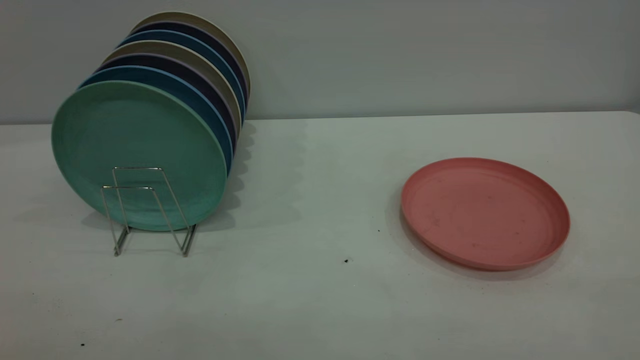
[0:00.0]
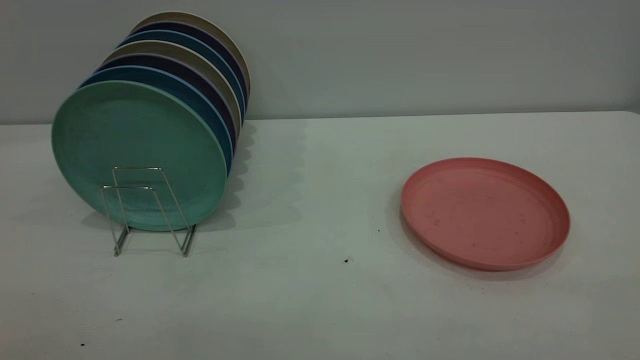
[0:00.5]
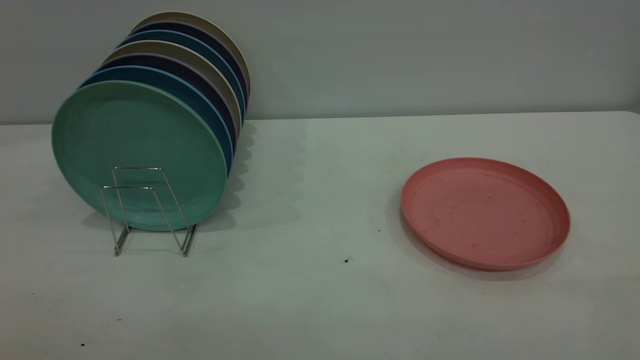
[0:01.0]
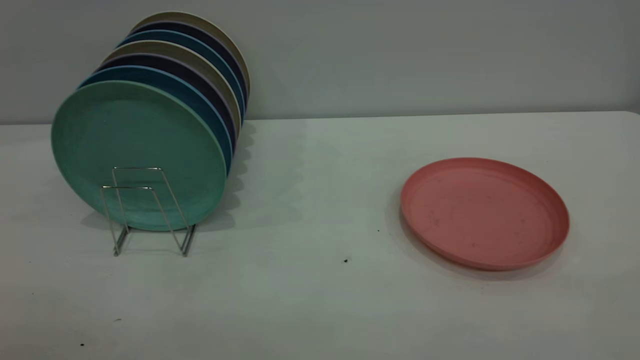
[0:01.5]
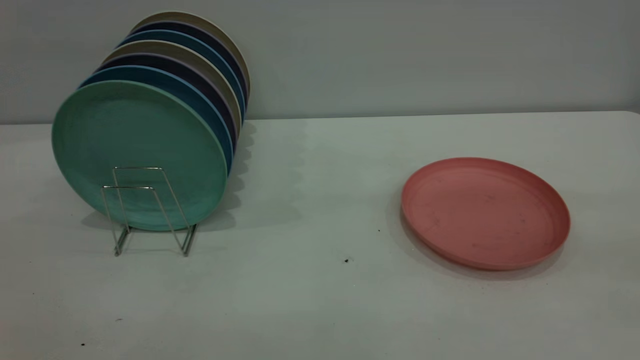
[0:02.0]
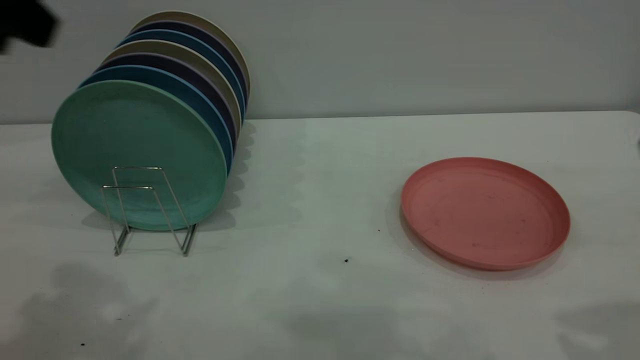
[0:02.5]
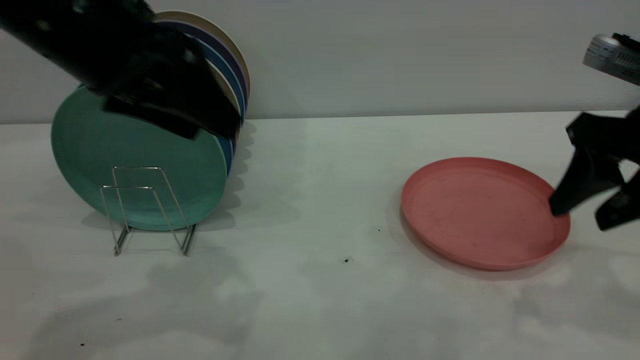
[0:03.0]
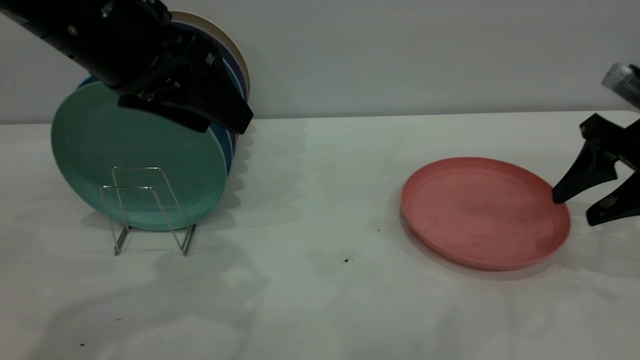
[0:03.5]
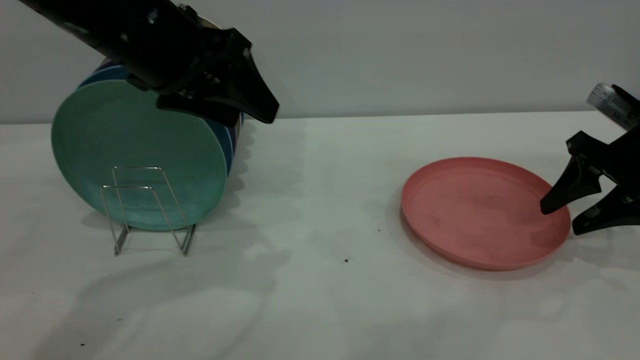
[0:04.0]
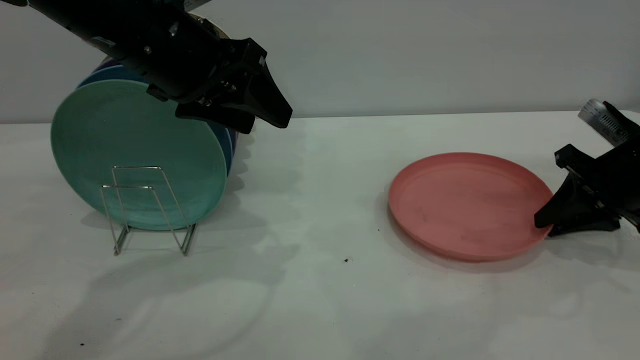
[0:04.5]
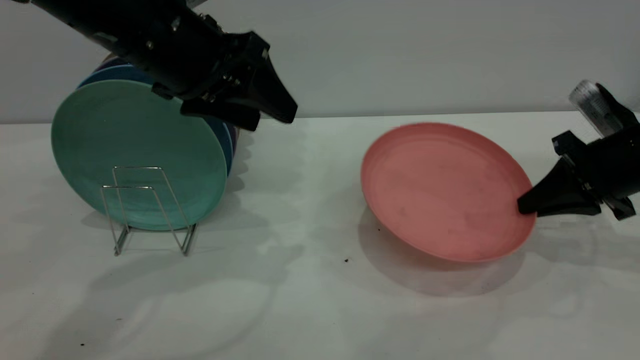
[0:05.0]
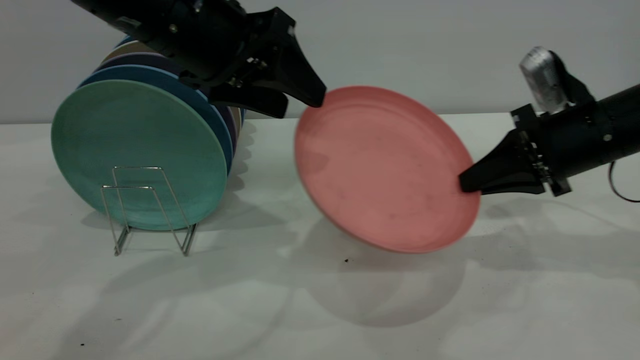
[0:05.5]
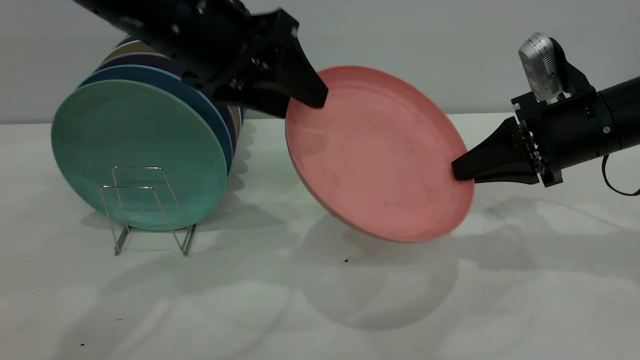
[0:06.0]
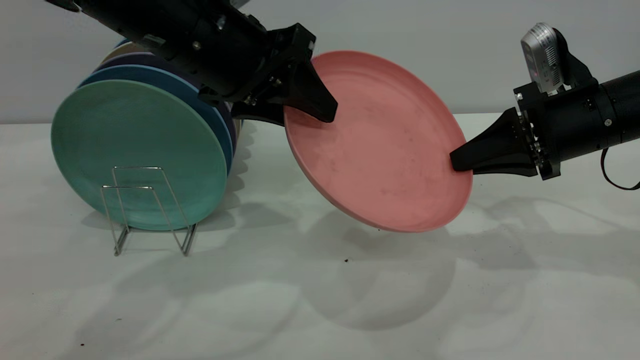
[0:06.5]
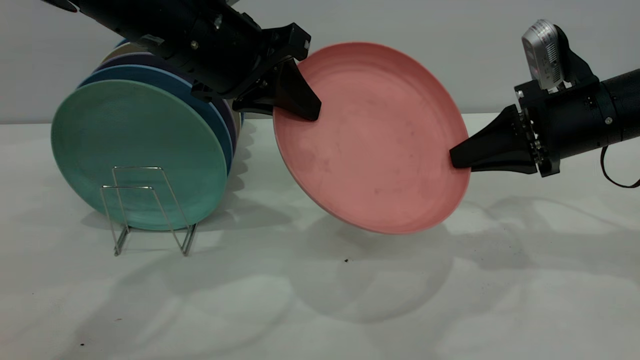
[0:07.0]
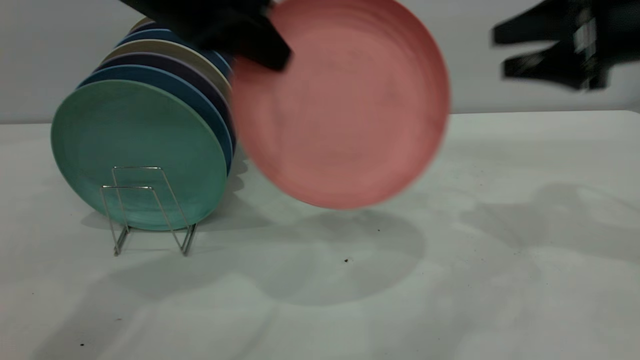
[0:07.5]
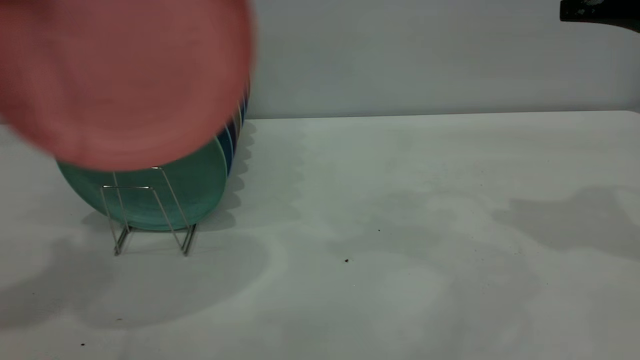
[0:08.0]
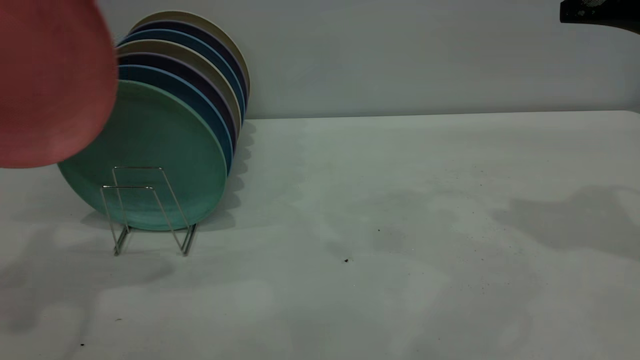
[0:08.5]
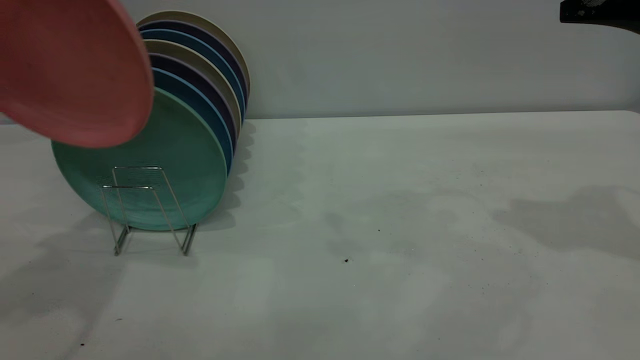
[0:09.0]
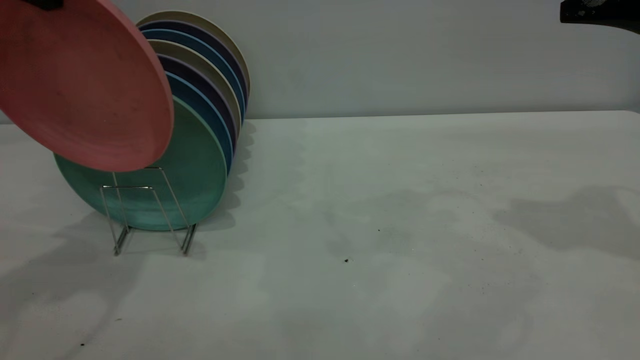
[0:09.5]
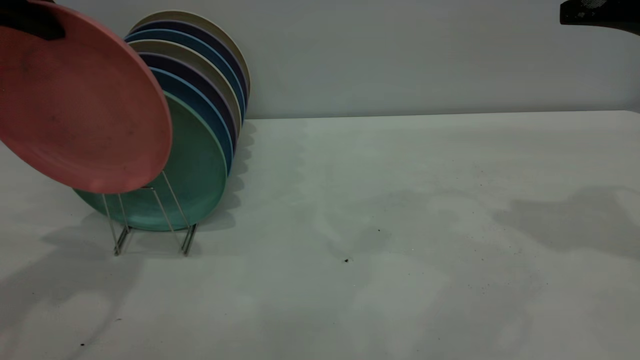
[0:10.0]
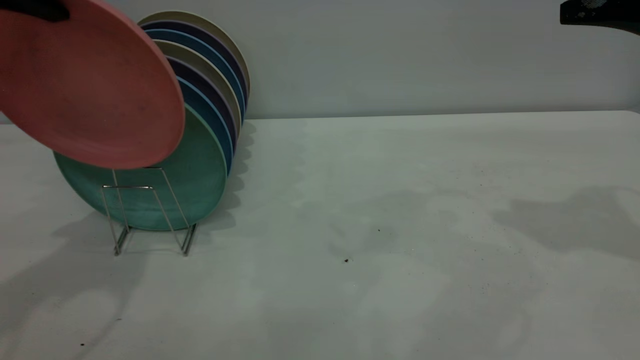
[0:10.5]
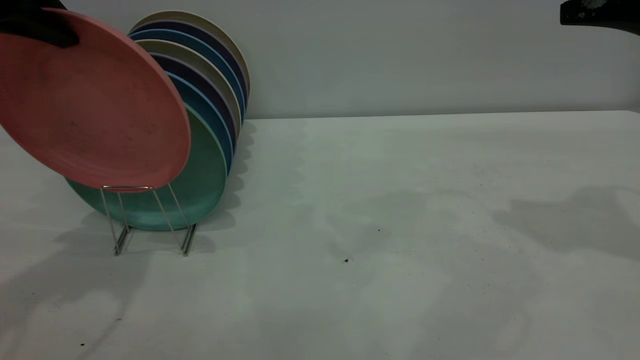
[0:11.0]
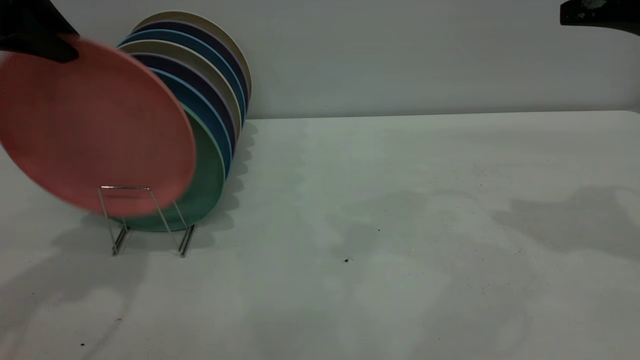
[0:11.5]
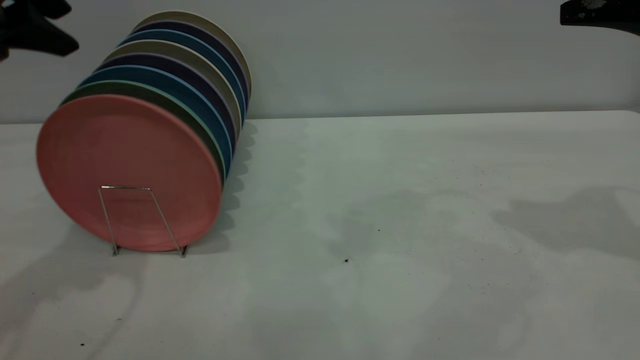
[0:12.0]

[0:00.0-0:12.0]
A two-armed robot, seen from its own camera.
Task of the whole recording: the right gripper grasp the pink plate, the right gripper pass the pink plate to the left gripper, and the left gripper place the pink plate on the plate rack.
Step, 0:00.0 to 0:05.0: Pick up the plate with the right gripper.
Step, 0:05.5 to 0:07.0: Pass the plate from the right gripper to the left gripper.
Step, 0:07.5 to 0:12.0: Place the plate on the shelf.
0:02.0 to 0:04.0: The right gripper shifts approximately 35 cm forward and downward, while the left gripper heads forward, downward and to the right, covering some 30 cm.
0:04.0 to 0:06.0: The right gripper shifts about 10 cm to the left, and closes up.
0:06.0 to 0:08.0: The left gripper heads to the left and upward, covering approximately 20 cm, and closes its fingers; the right gripper is displaced upward and to the right by some 15 cm, and opens up.
0:08.0 to 0:10.0: The left gripper moves downward, approximately 5 cm.
0:10.0 to 0:12.0: The left gripper opens up.
